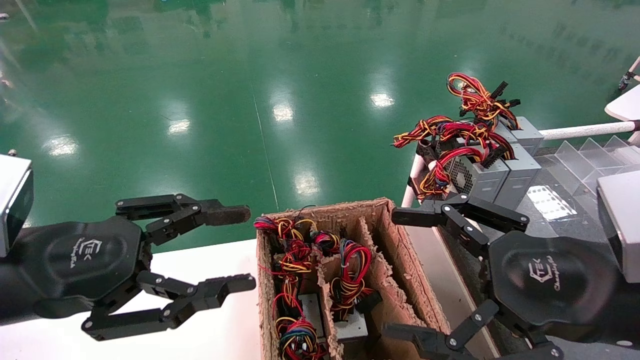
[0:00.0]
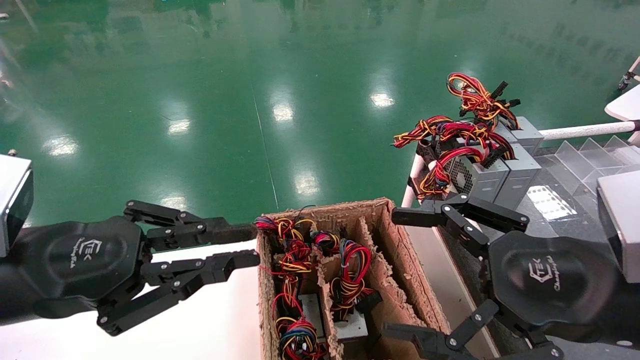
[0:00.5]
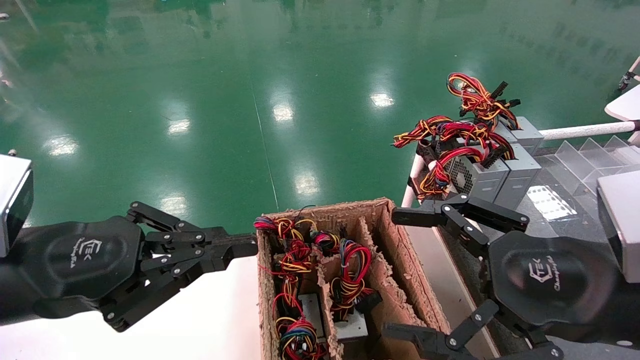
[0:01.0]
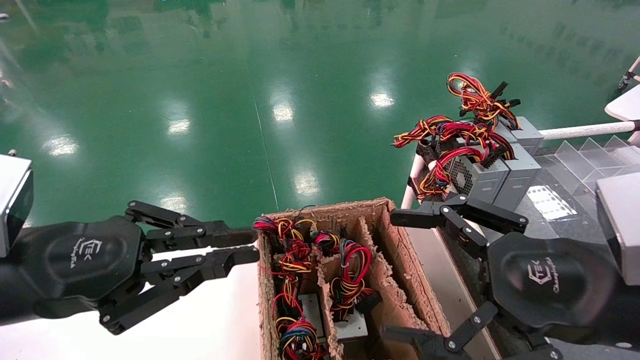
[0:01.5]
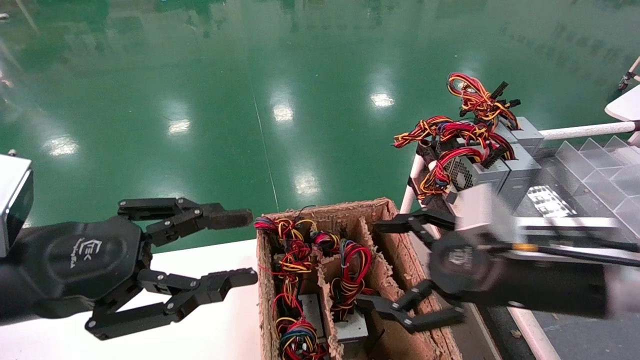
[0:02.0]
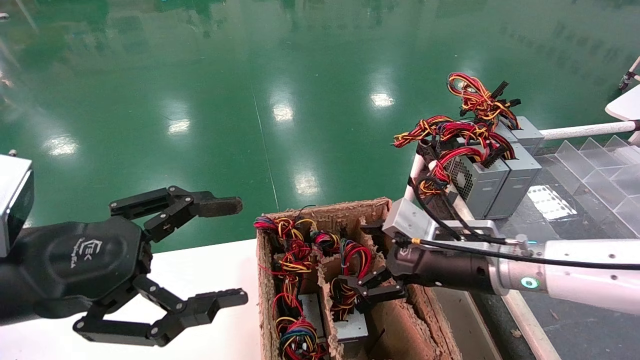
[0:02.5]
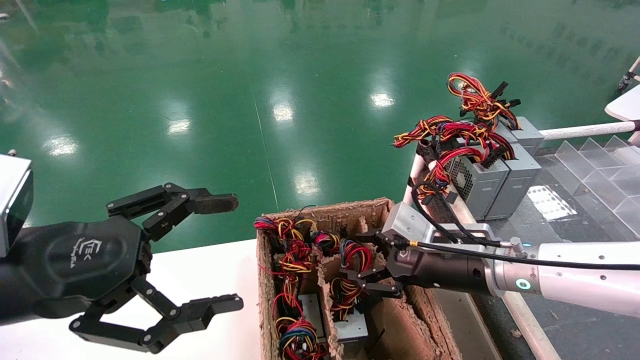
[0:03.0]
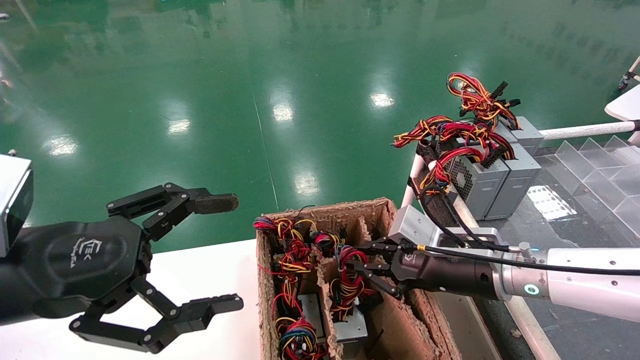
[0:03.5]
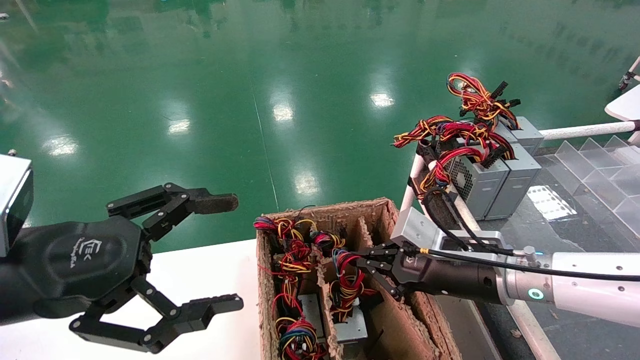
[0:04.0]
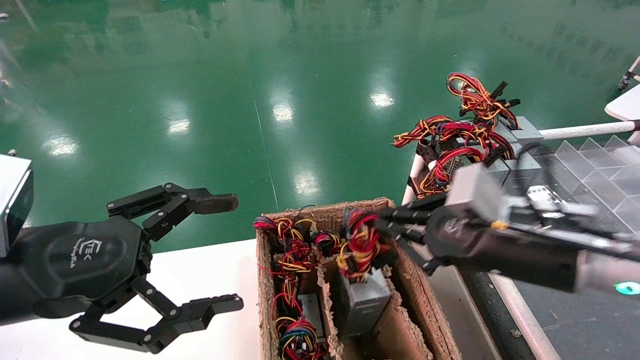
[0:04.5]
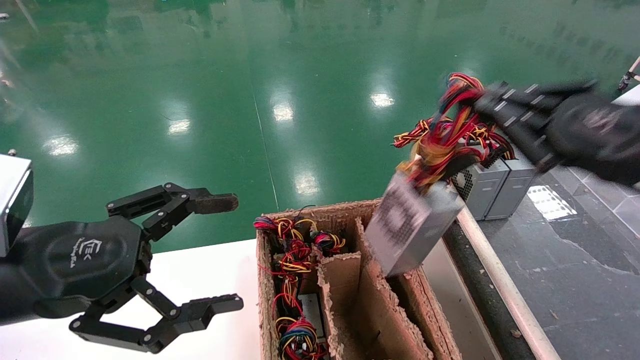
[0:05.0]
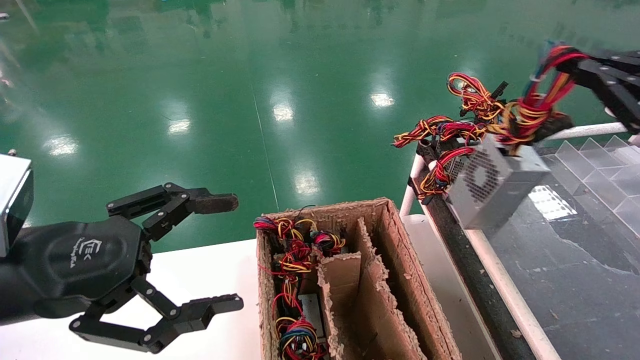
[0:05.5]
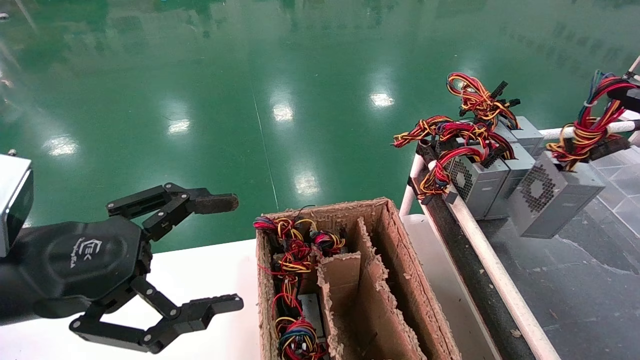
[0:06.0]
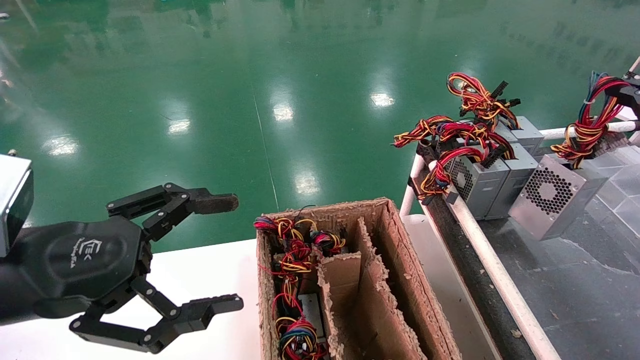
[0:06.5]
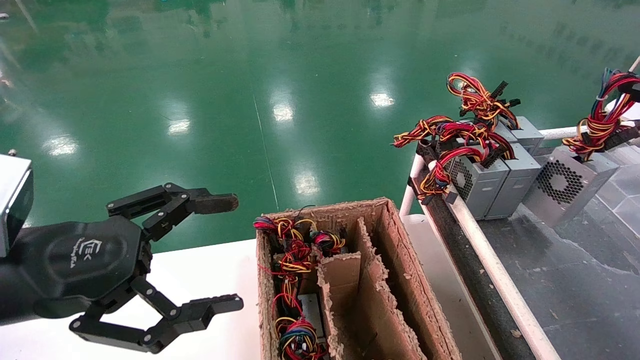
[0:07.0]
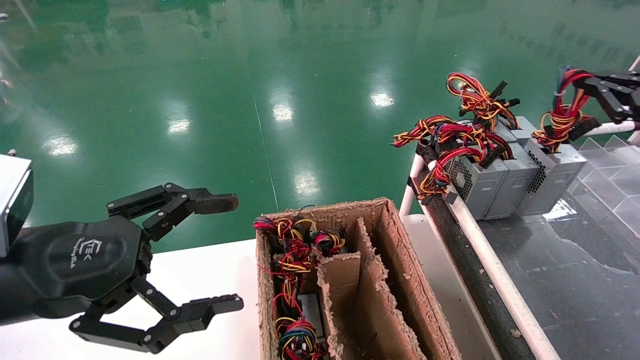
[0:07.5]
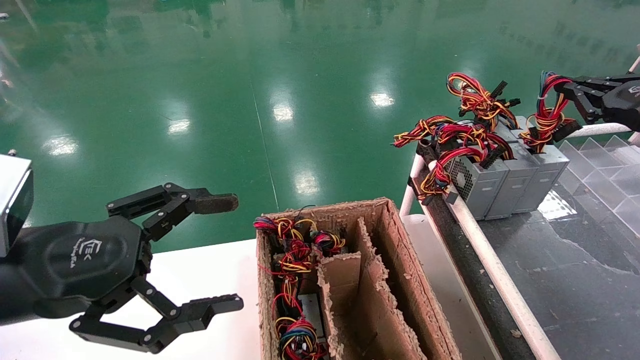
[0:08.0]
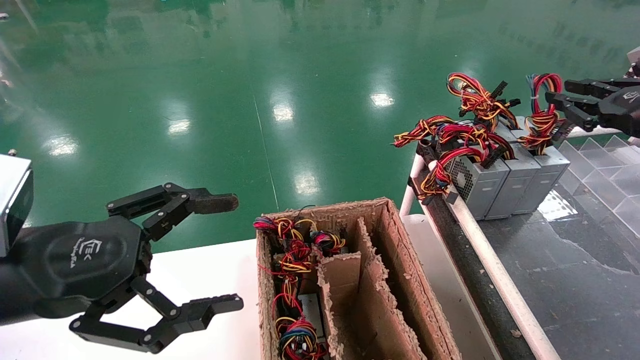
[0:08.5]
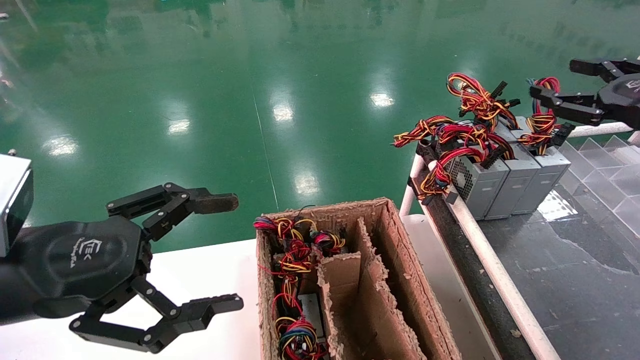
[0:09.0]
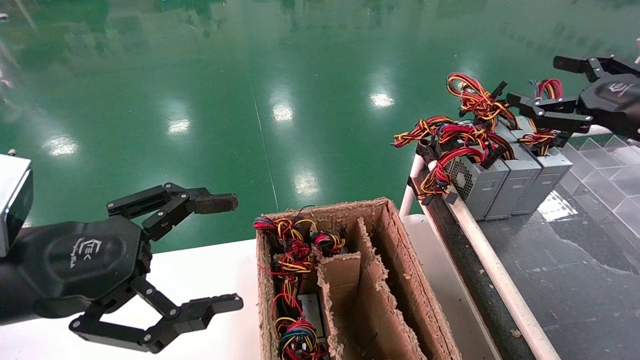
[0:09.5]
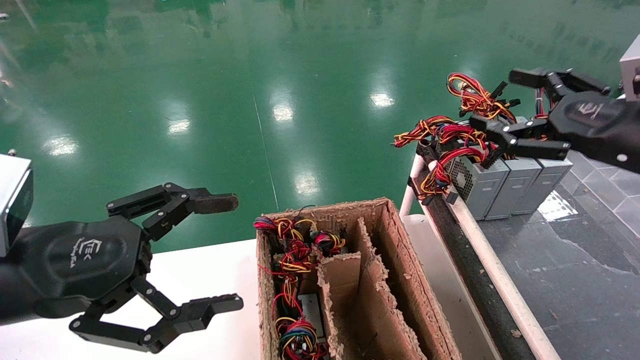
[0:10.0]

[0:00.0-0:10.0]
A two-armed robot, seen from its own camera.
Step, 0:01.0 to 0:04.0: Grab and lift the power supply from the large box.
Step, 0:04.5 to 0:08.0: Place the power supply on the operating table.
0:00.0 to 0:02.0: The right gripper shifts some 5 cm forward.
0:02.0 to 0:04.0: The right gripper is displaced forward by roughly 5 cm, and closes its fingers; the left gripper opens up.
0:04.0 to 0:06.0: The right gripper travels to the right and upward by approximately 30 cm.
0:06.0 to 0:08.0: The right gripper heads forward, covering roughly 10 cm.
0:08.0 to 0:10.0: The right gripper goes roughly 10 cm to the left and backward, and opens up.

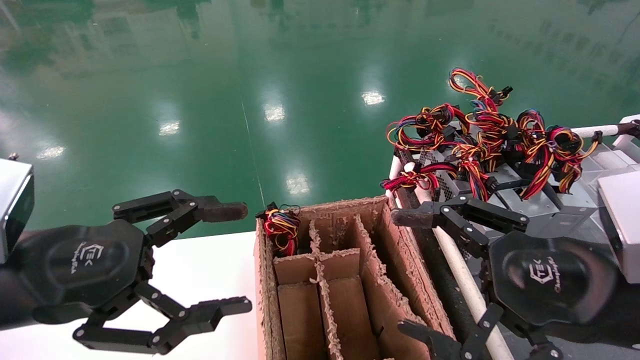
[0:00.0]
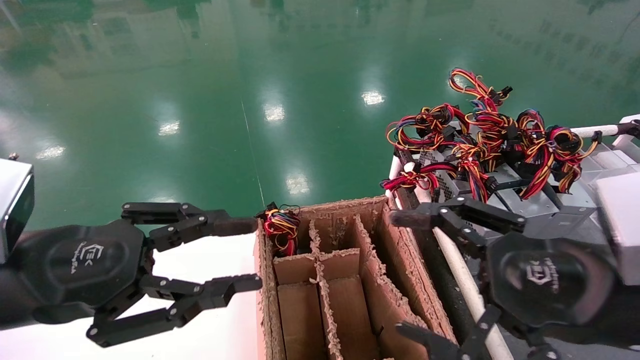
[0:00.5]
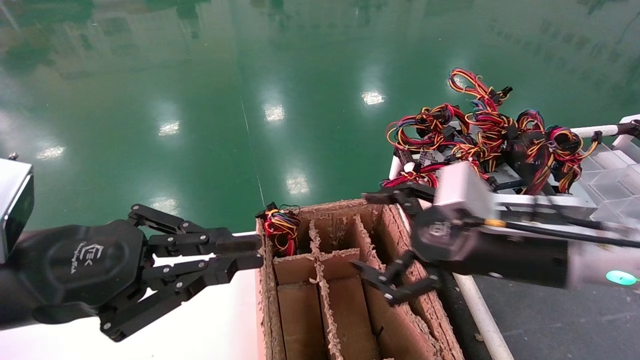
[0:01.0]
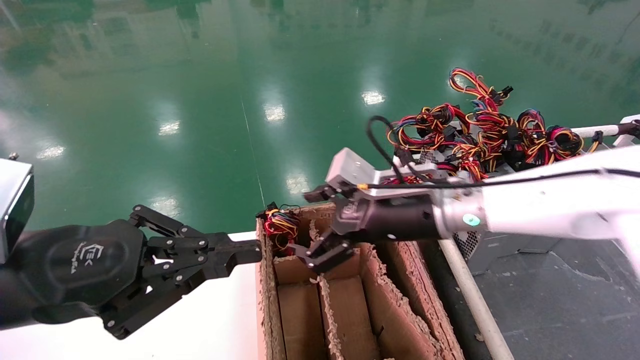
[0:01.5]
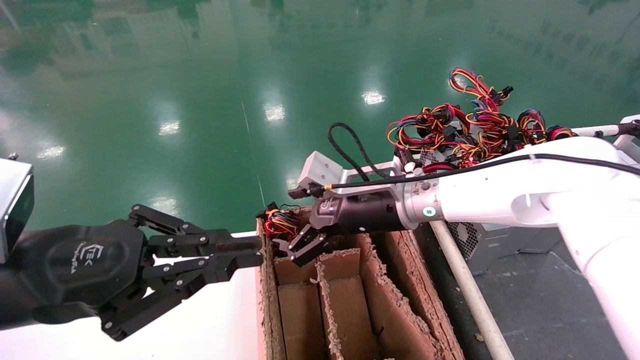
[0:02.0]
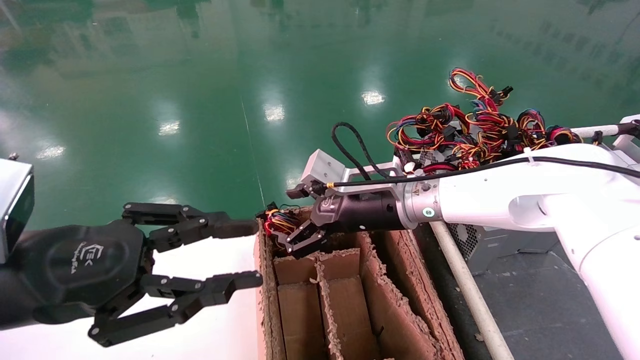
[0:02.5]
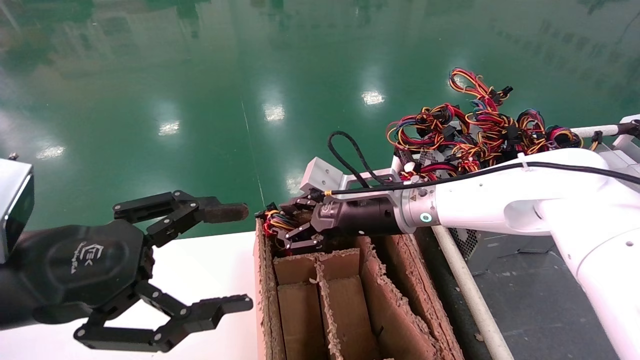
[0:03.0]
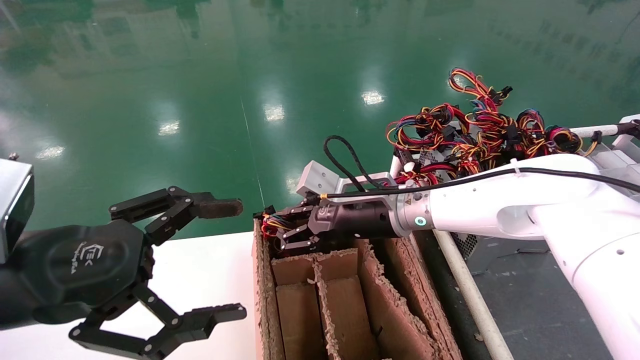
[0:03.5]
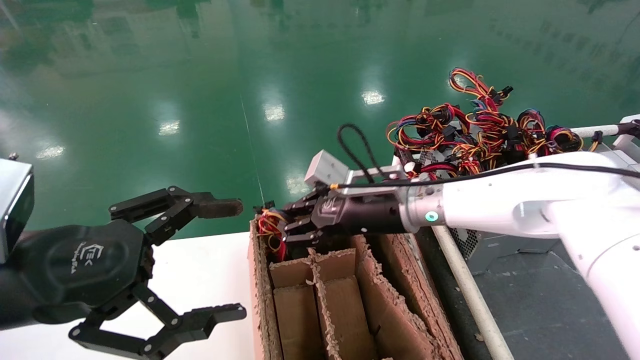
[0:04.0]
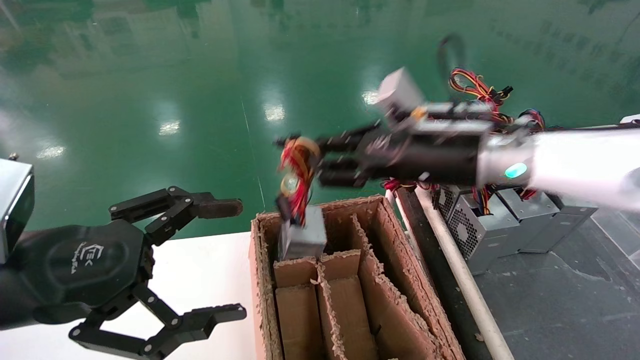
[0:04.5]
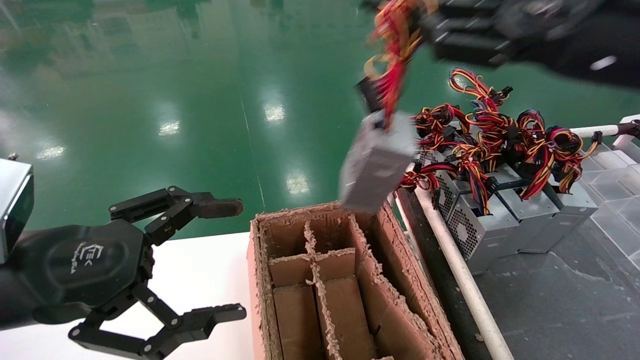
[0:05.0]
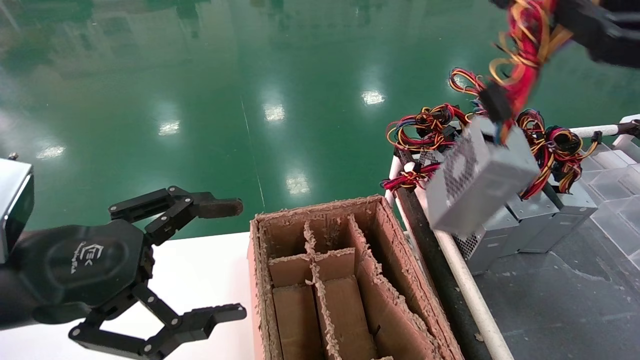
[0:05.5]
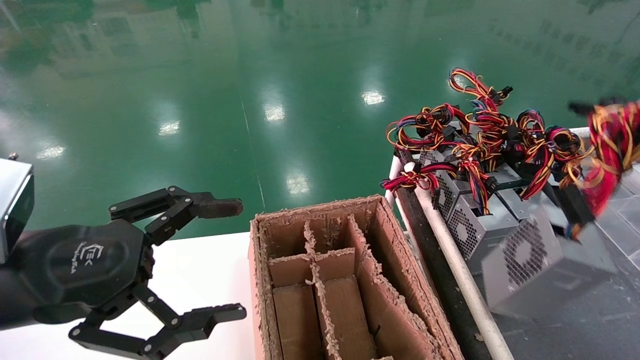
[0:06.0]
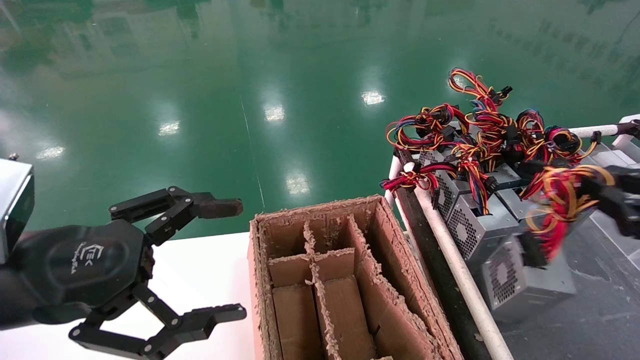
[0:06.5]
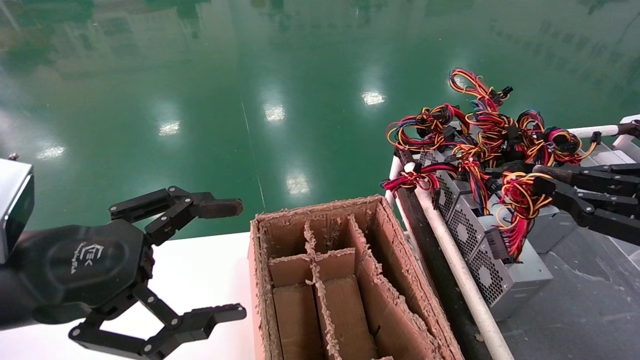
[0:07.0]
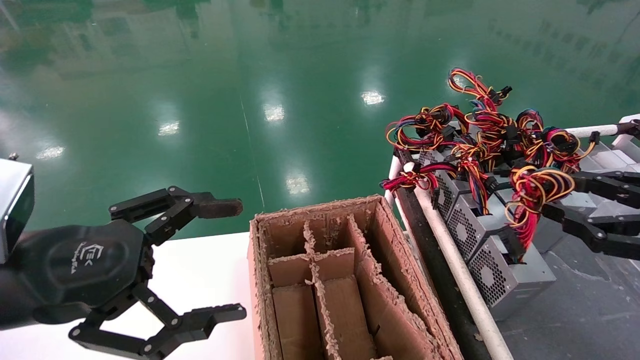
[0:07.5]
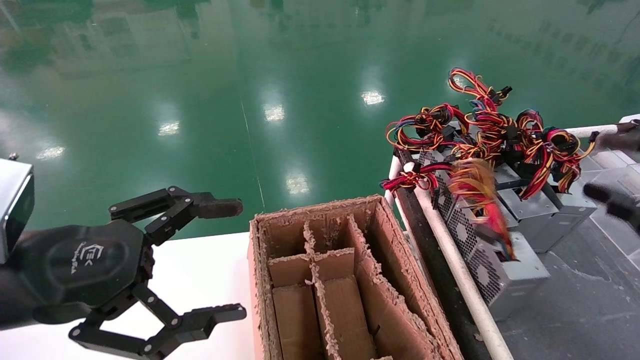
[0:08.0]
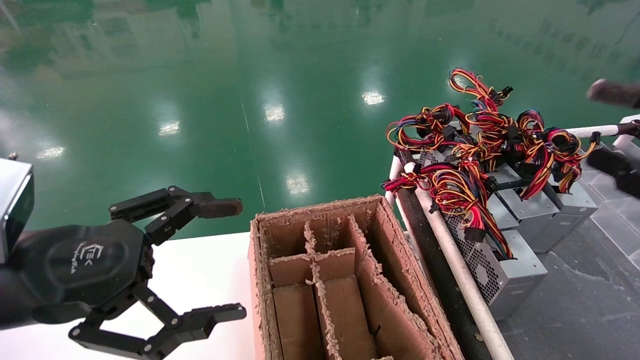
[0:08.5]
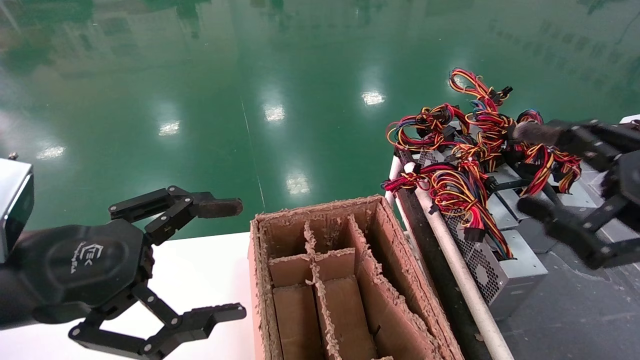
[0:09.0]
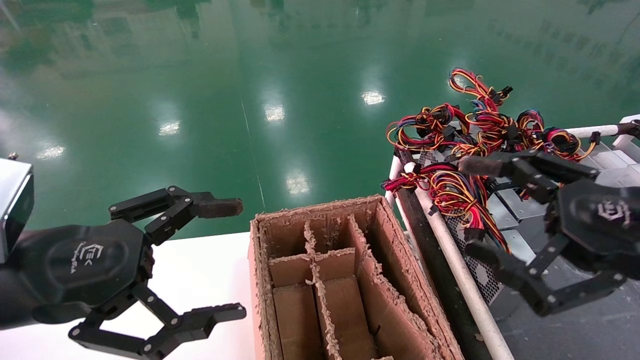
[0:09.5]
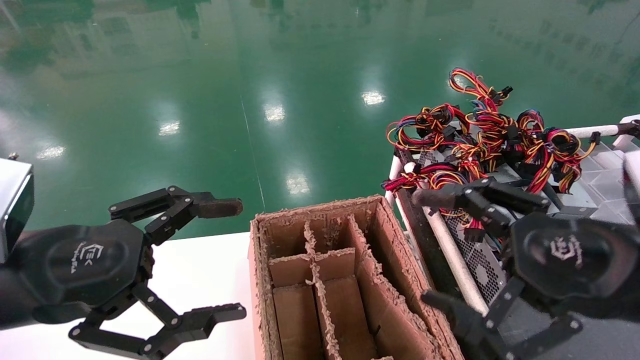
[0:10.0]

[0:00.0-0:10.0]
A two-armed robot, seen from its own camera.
Step, 0:01.5 to 0:03.5: Grab and lift the power supply from the large box.
Step, 0:04.0 to 0:07.5: Place the power supply on the operating table.
0:00.0 to 0:02.0: The right gripper heads forward and to the left, covering approximately 25 cm, while the left gripper closes up.
0:02.0 to 0:04.0: The left gripper opens its fingers; the right gripper closes.
0:04.0 to 0:06.0: The right gripper heads to the right and backward, covering some 40 cm.
0:06.0 to 0:08.0: The right gripper opens.
0:08.0 to 0:10.0: The right gripper travels to the left by some 15 cm.
